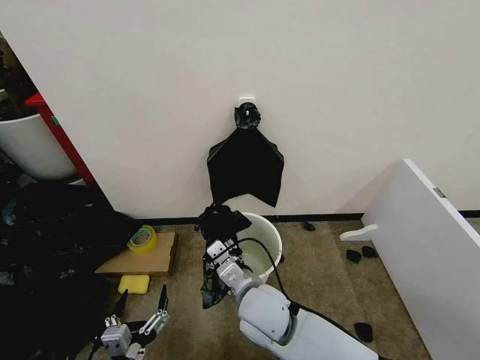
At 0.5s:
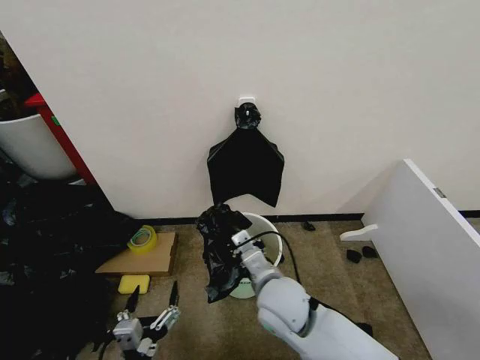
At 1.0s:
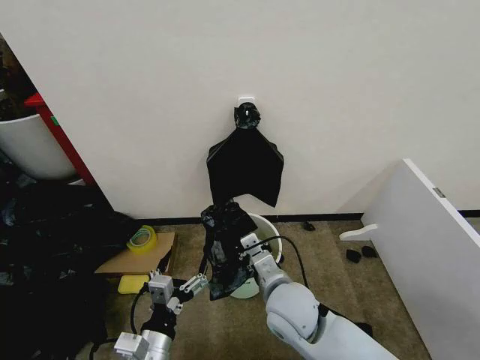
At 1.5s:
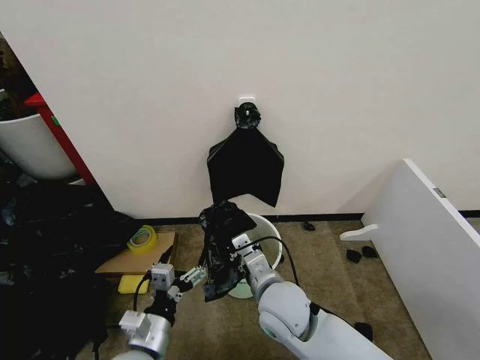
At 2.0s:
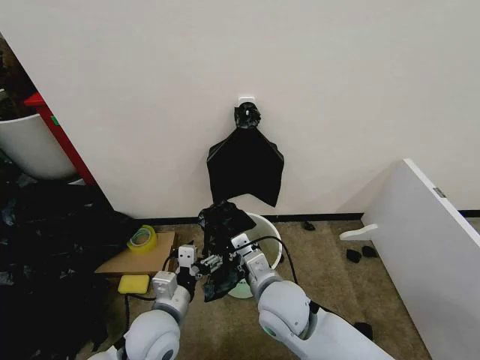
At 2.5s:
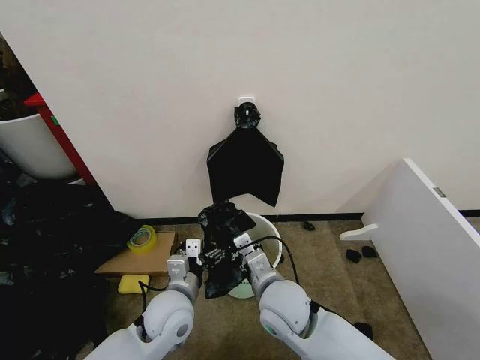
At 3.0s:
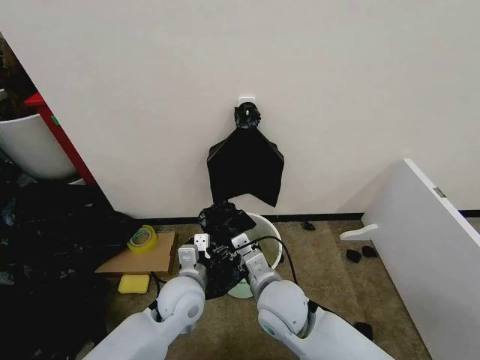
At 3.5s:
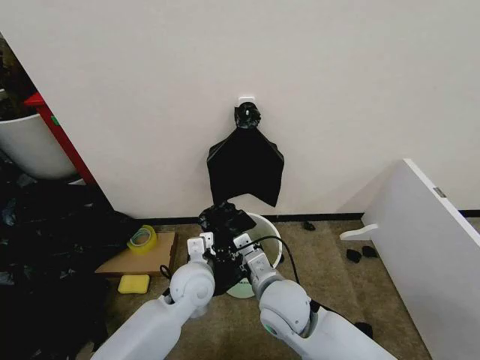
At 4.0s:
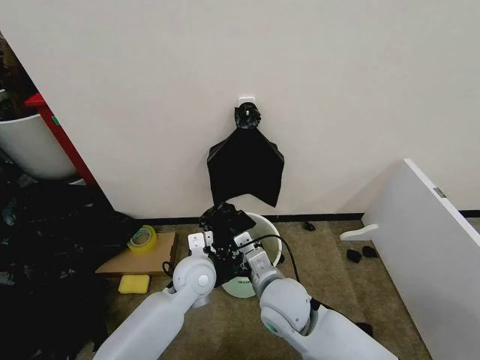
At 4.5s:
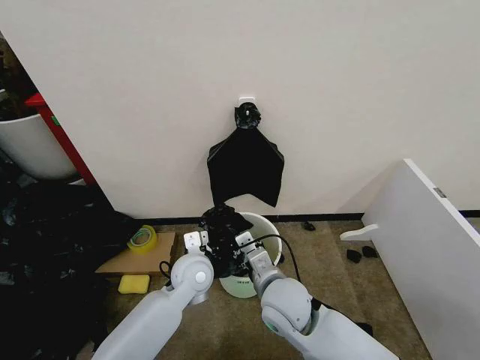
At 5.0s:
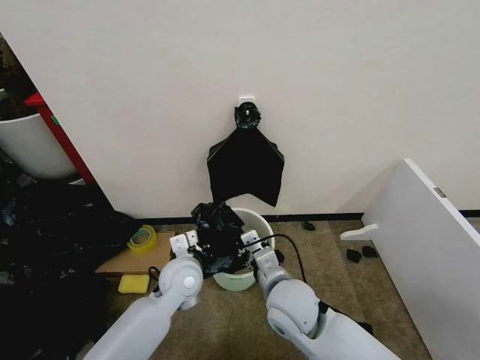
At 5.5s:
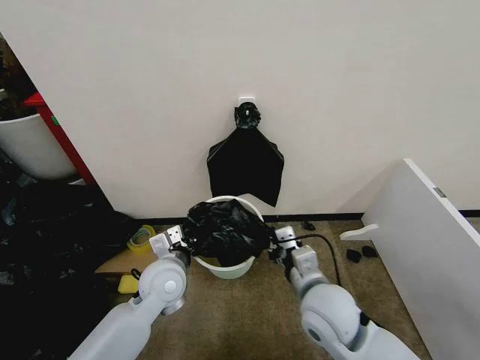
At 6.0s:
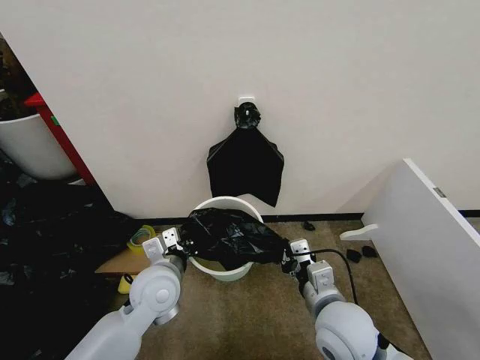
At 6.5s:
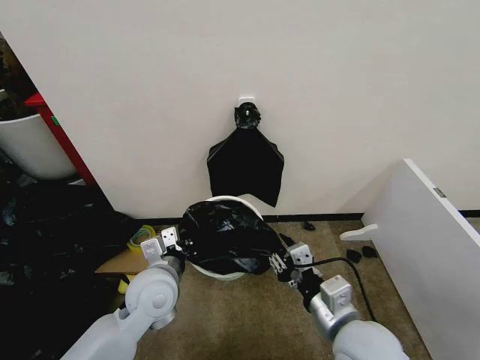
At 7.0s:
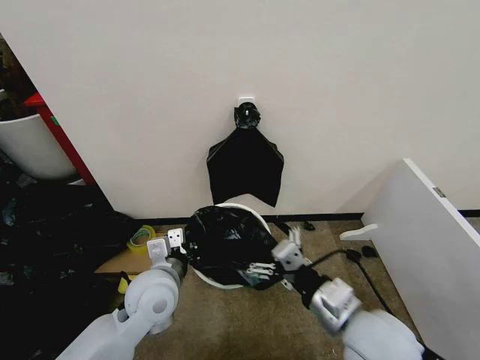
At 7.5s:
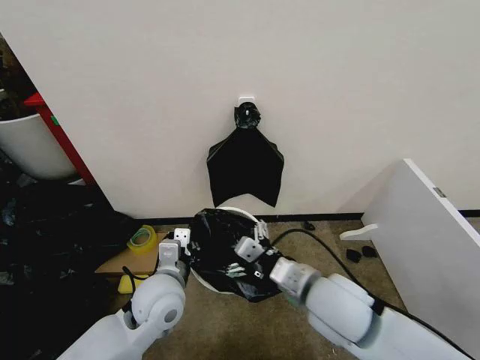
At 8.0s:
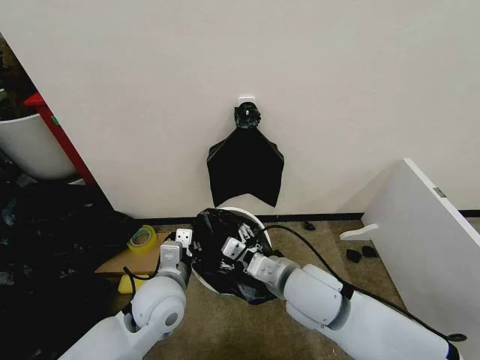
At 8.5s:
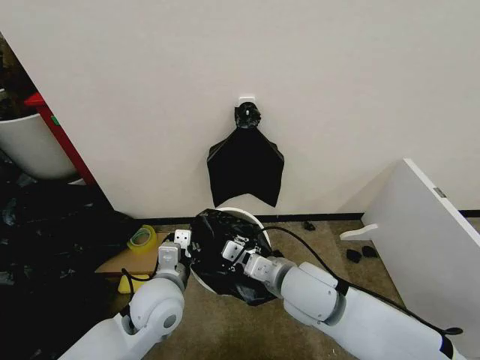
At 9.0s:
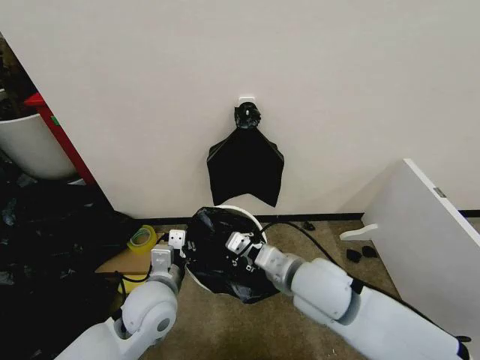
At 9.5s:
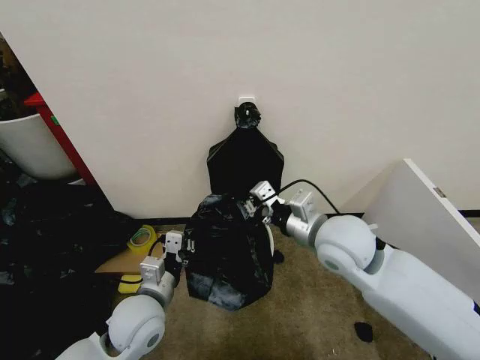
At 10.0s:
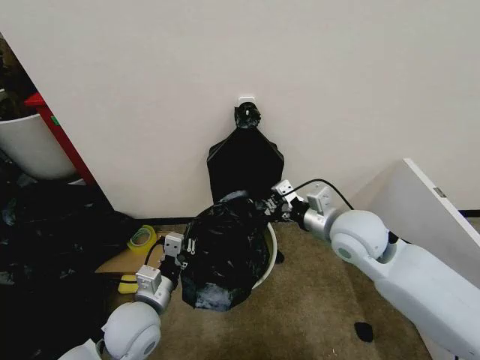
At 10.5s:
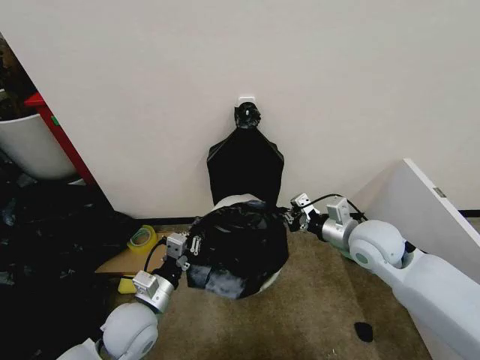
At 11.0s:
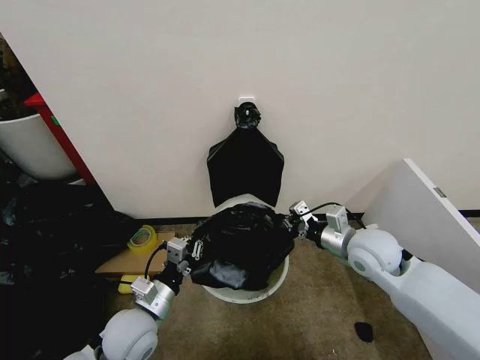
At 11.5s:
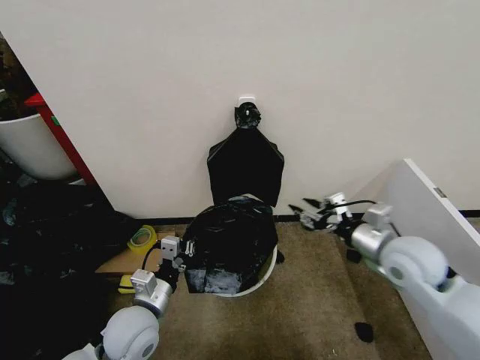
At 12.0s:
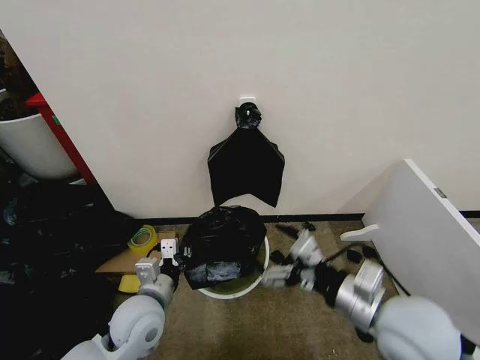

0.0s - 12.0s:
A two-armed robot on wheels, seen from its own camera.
Task of the whole recording: Place the garbage bag over the trash bin.
0.0s - 2.0s: The left gripper goes roughly 15 cm forward.
2.0s - 4.0s: The left gripper travels forward and to the right by about 15 cm.
4.0s - 6.0s: The left gripper heads to the left, covering about 5 cm, and closes up. The right gripper moves to the right and backward, some 10 cm.
6.0s - 8.0s: The right gripper heads to the left and forward, covering some 5 cm, and opens its fingers.
8.0s - 10.0s: The left gripper heads to the left, covering roughly 5 cm. Meanwhile the right gripper is displaced to the right, forward and upward by some 15 cm, and closes up.
10.0s - 12.0s: The right gripper goes about 15 cm backward, and opens.

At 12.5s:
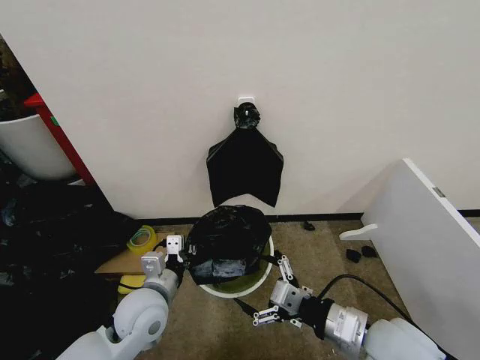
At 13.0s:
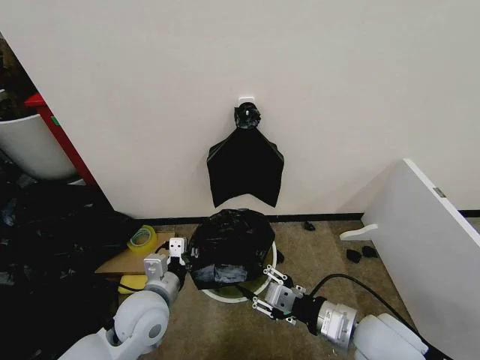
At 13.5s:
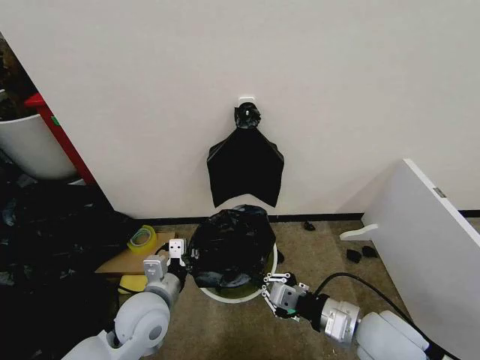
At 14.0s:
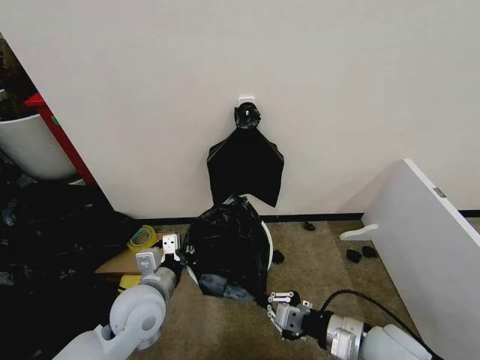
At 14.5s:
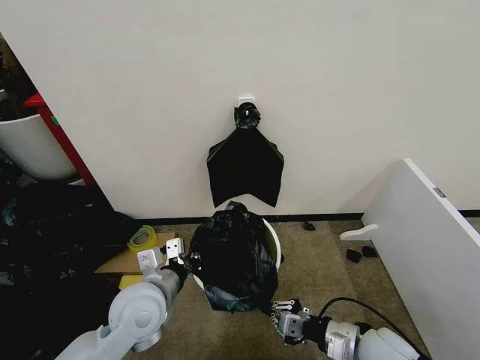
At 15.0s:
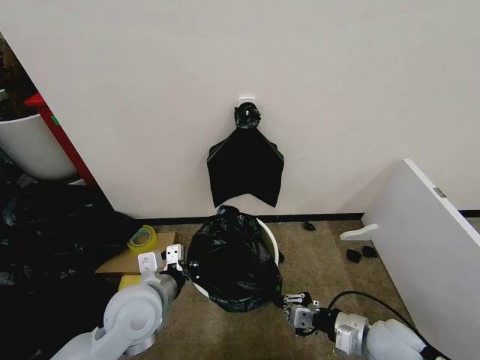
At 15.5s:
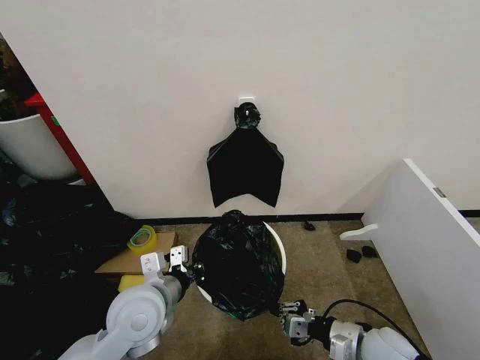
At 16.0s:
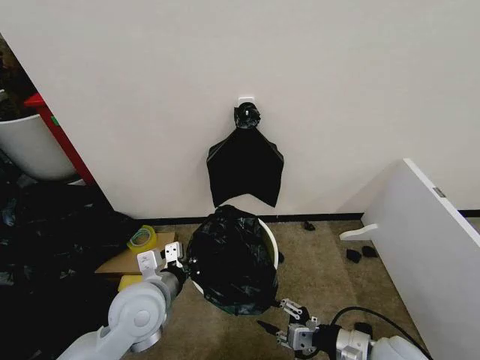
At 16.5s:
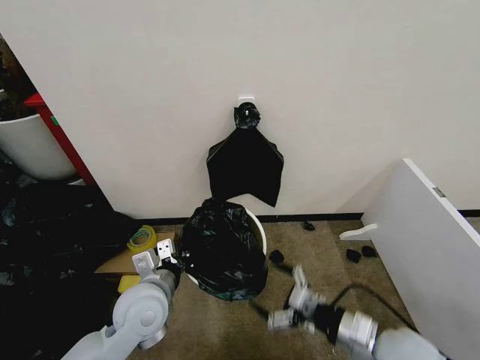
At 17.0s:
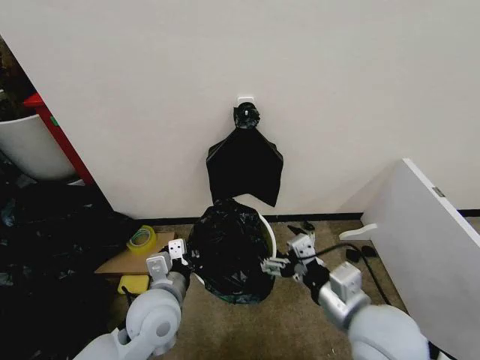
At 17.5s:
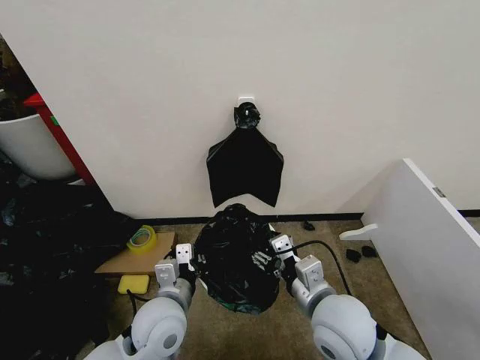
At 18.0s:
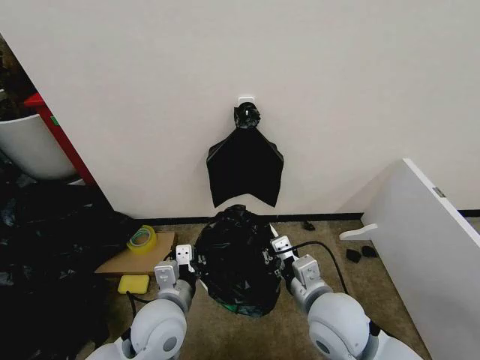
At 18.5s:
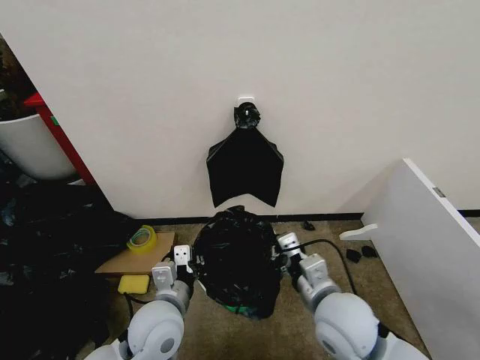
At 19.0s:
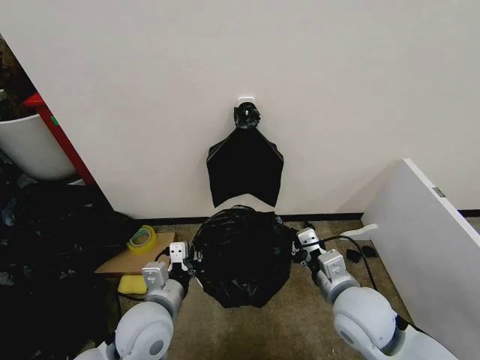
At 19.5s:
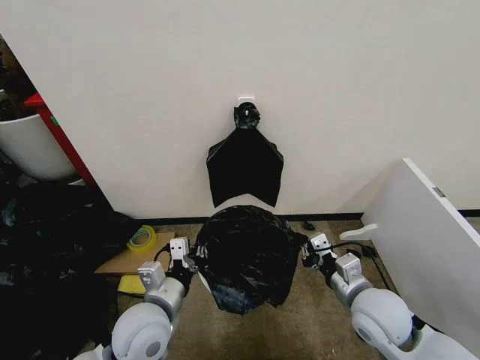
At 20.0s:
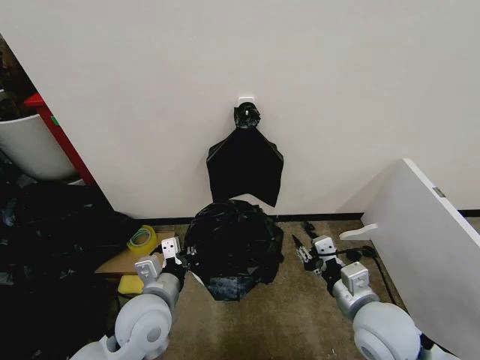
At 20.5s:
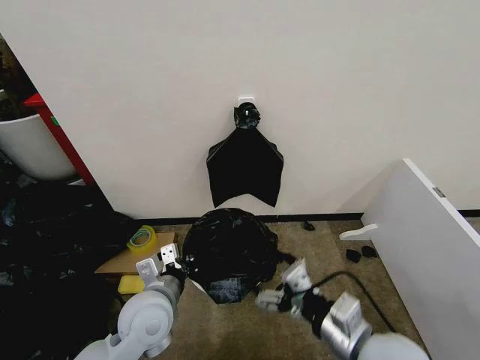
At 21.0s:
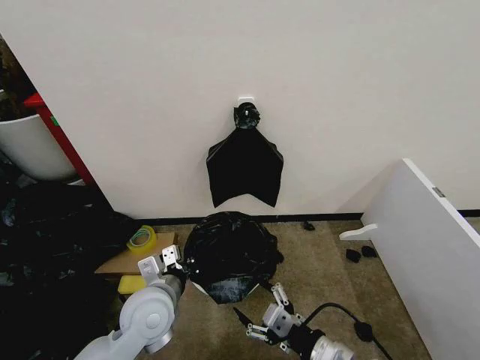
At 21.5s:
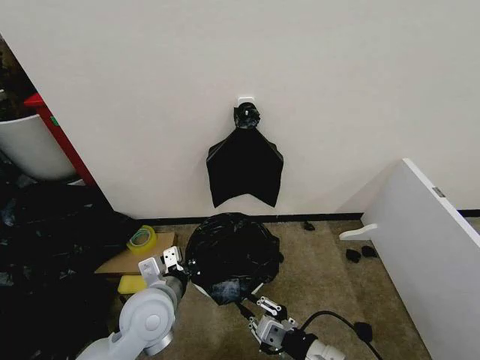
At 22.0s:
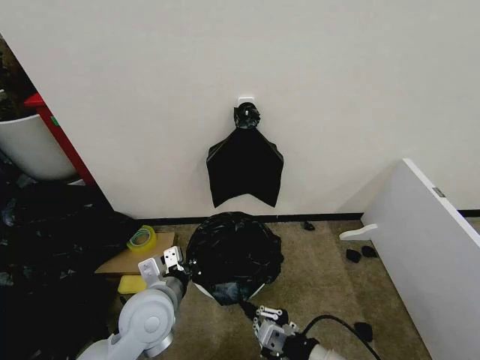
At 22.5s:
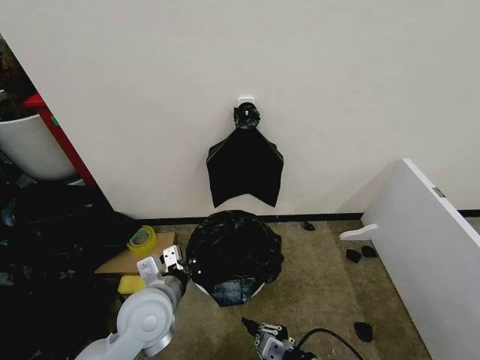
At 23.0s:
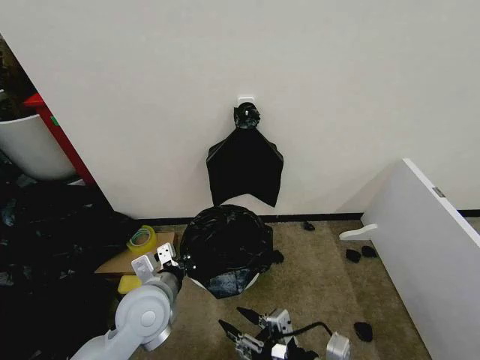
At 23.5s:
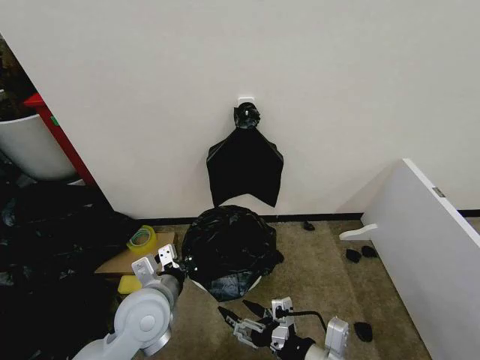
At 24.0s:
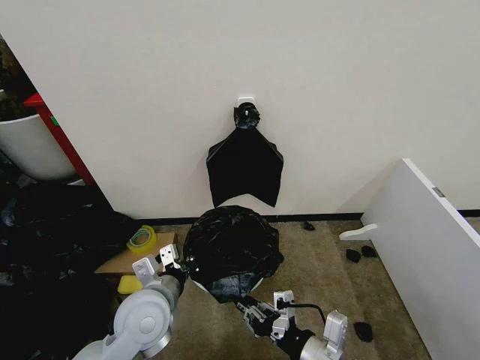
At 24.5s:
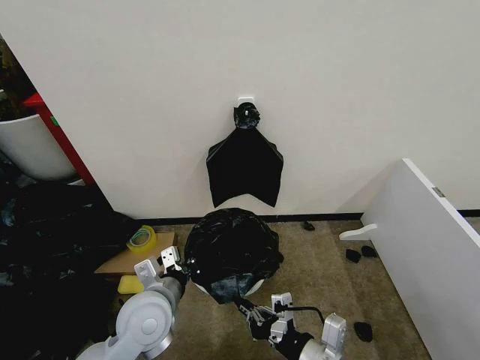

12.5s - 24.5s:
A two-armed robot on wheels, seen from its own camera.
Task of the whole recording: Place the garbage bag over the trash bin.
12.5s - 14.5s: The right gripper goes about 10 cm downward, and closes its fingers.
14.5s - 16.5s: The right gripper moves upward, approximately 5 cm, and opens.
16.5s - 18.5s: The right gripper shifts roughly 10 cm to the left, and closes.
18.5s - 20.5s: The right gripper travels backward by some 5 cm, and opens its fingers.
20.5s - 22.5s: The right gripper travels downward by some 15 cm, and closes up.
22.5s - 24.5s: The right gripper shifts approximately 10 cm upward, and opens, then closes again.

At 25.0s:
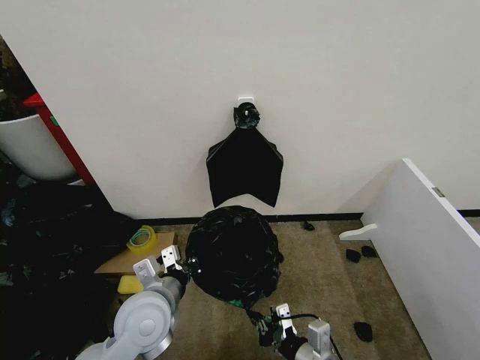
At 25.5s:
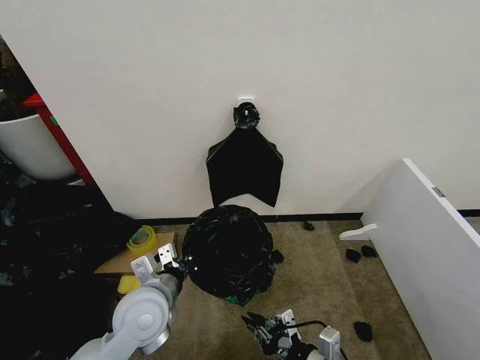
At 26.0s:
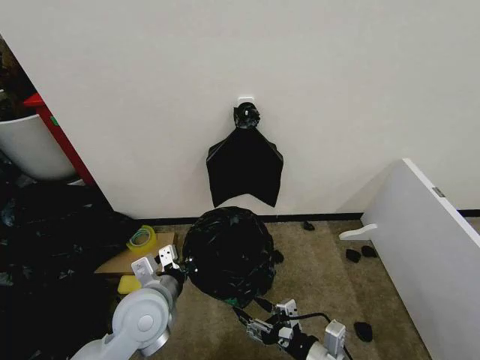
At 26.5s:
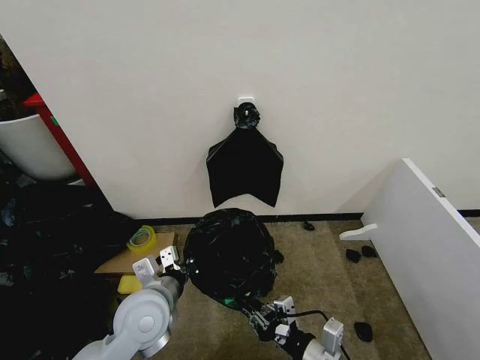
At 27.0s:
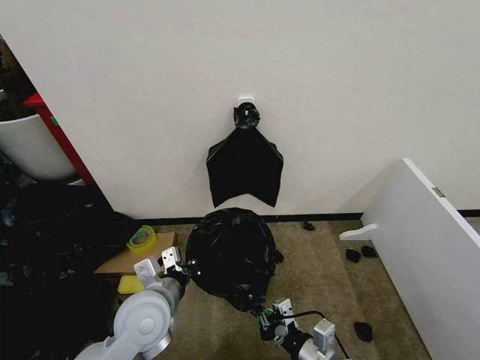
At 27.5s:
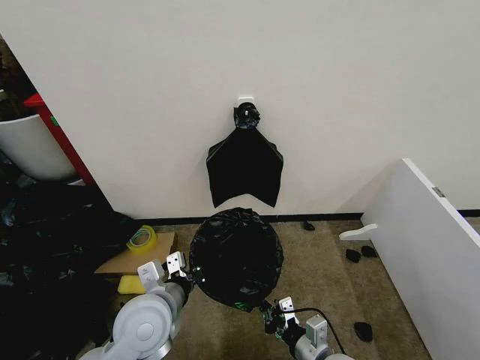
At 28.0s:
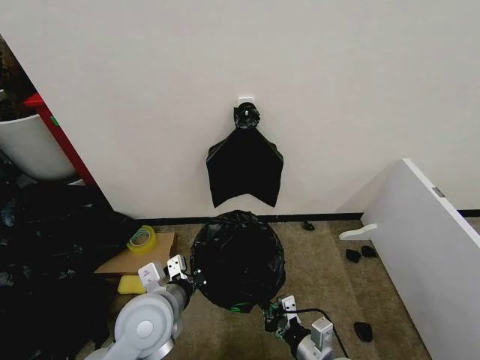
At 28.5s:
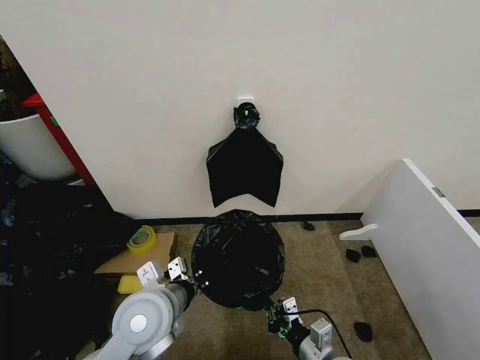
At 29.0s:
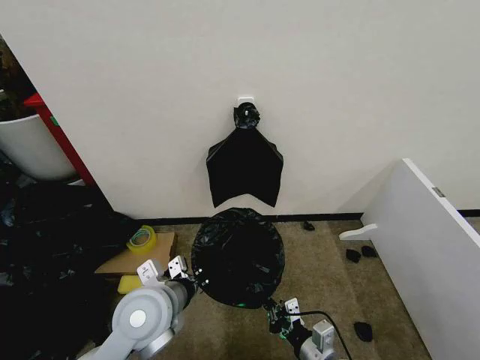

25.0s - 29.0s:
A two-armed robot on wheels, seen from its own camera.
Task of the whole recording: Place the garbage bag over the trash bin.
25.0s - 27.0s: The right gripper opens, then closes again.
27.0s - 29.0s: The grippers move only a little.
